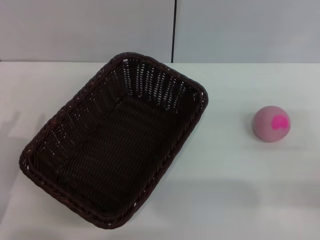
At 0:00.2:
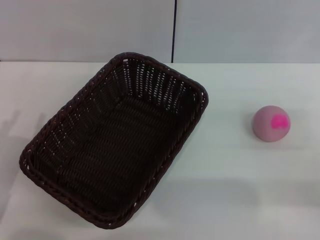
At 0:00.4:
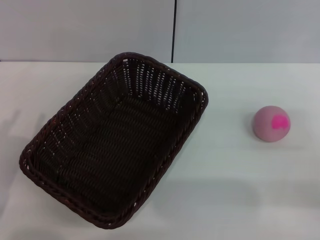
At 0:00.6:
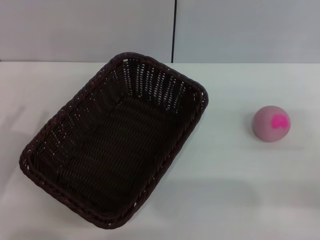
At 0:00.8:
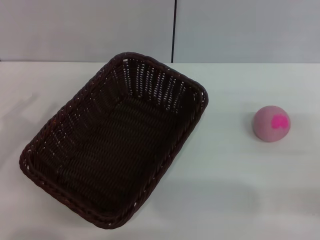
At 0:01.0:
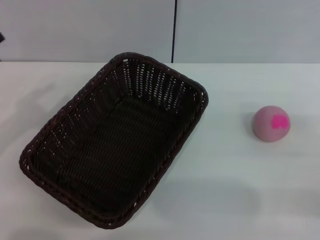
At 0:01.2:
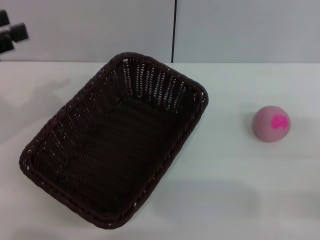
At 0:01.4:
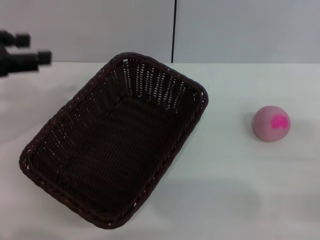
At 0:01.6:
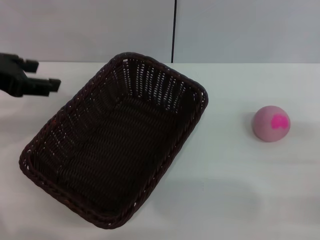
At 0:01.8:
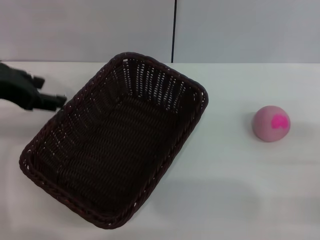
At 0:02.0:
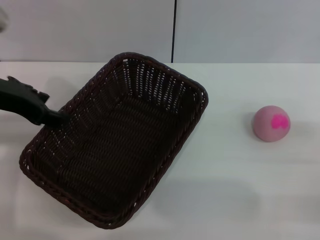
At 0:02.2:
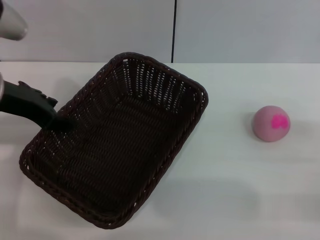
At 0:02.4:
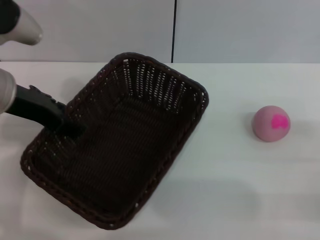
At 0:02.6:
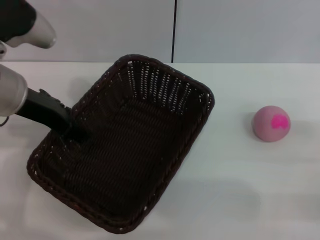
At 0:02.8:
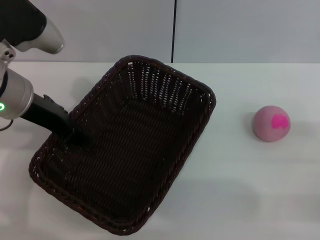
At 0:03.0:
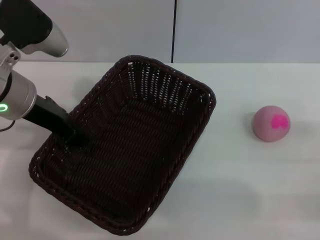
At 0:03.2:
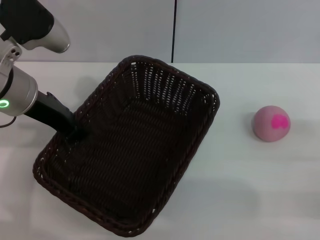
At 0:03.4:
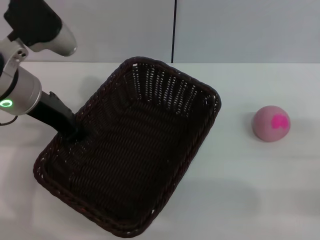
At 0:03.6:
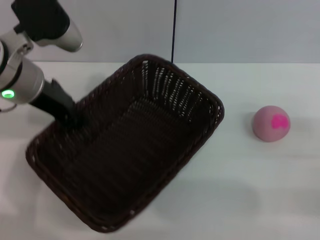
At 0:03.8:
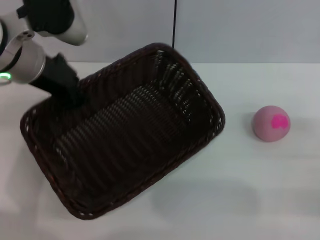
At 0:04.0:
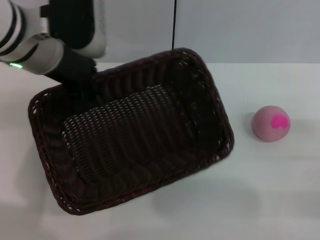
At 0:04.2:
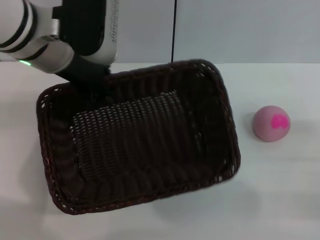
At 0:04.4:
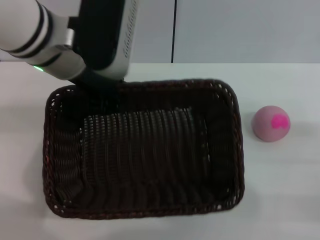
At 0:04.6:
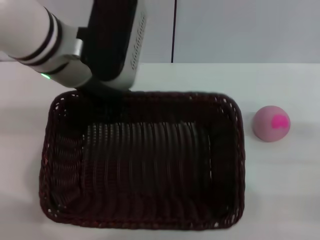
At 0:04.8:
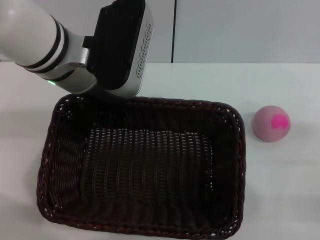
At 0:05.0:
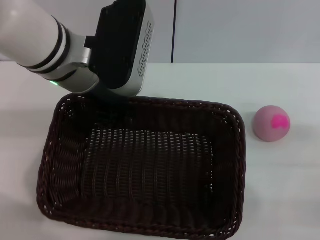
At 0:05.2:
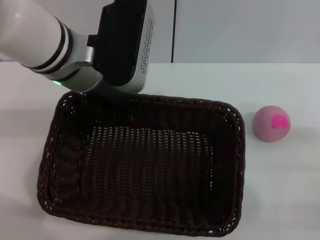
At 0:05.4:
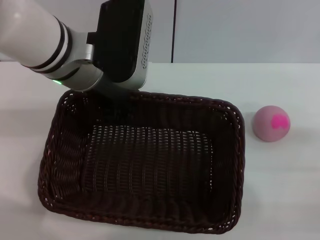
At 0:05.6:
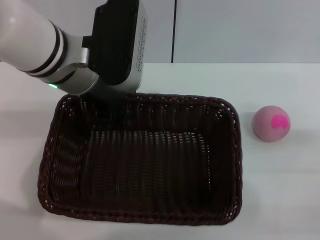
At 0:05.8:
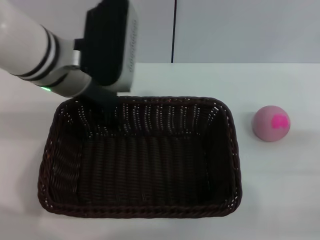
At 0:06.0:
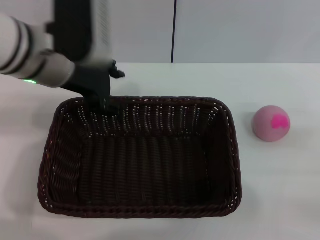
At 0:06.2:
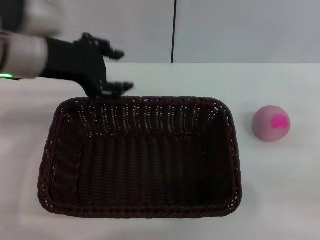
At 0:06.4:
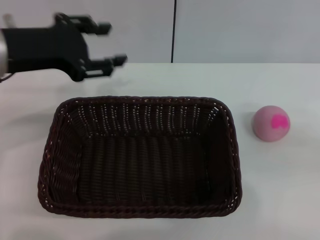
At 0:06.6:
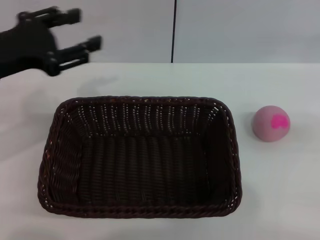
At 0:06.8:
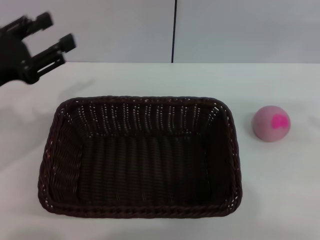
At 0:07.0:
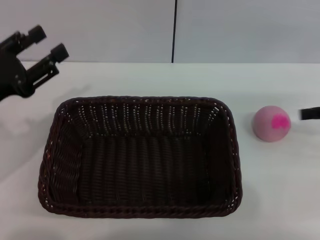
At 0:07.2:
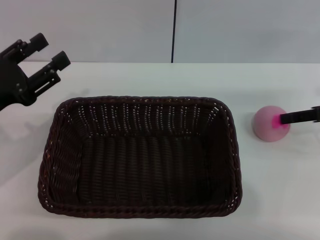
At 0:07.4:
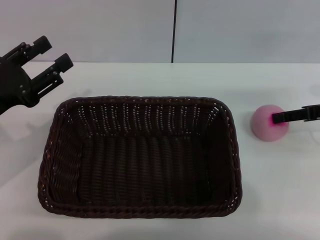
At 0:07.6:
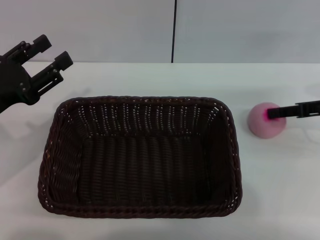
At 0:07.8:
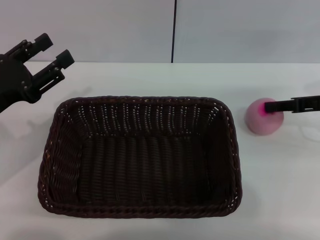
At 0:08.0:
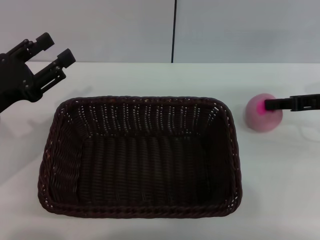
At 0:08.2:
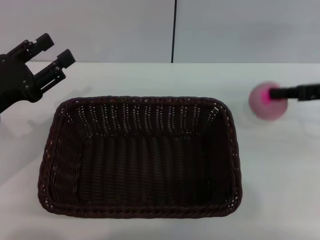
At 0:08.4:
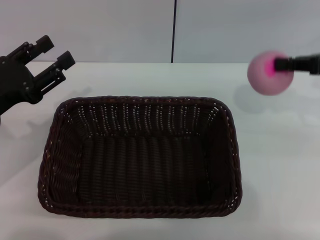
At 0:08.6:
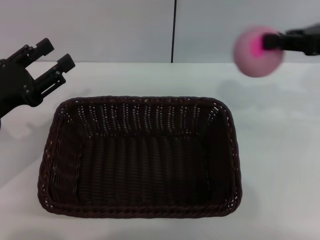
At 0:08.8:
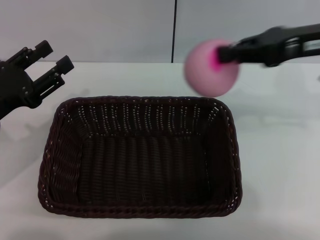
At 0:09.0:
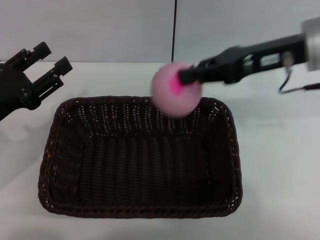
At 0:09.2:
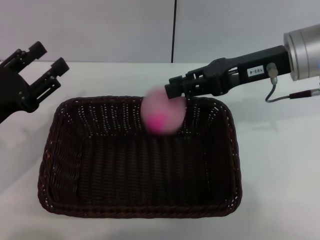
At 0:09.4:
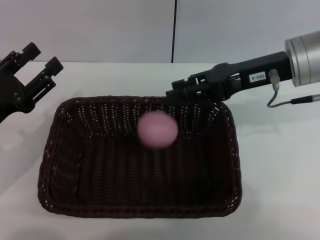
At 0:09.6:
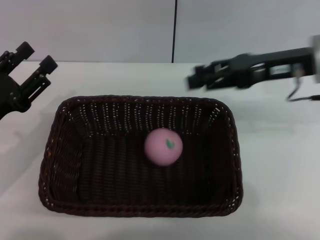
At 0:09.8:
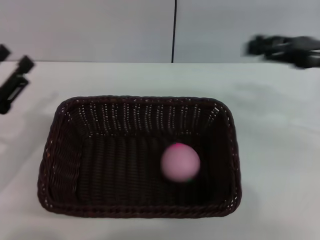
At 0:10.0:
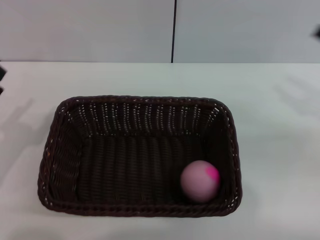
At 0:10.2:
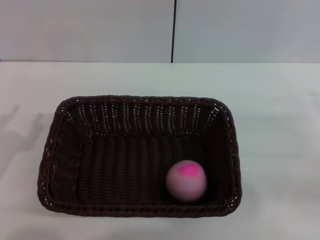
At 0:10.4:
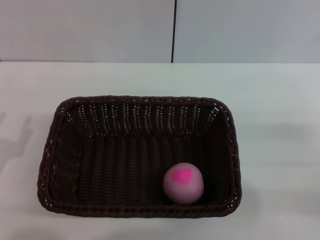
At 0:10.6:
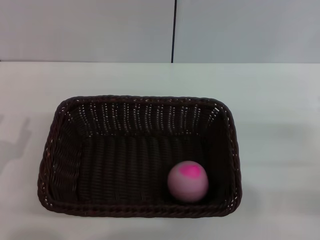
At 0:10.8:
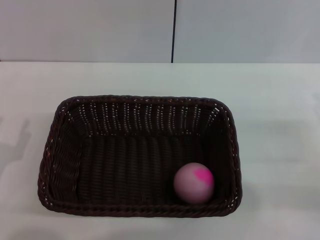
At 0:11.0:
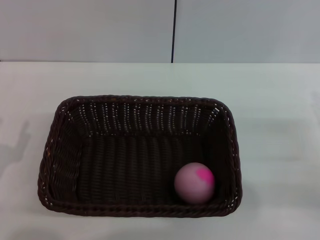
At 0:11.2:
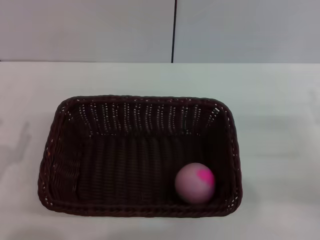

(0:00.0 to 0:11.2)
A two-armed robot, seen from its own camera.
Step, 0:00.0 - 0:03.8: Pick up the dark basket with the left gripper.
Step, 0:04.2 - 0:06.2: Place the dark basket in the center of view with the right gripper.
Step, 0:06.4 - 0:08.4: Pick up the peach with the left gripper.
Step, 0:08.6 - 0:09.6: Place the peach into the basket with the left gripper.
0:00.0 - 0:01.6: The left gripper travels upward and forward by some 25 cm.
0:01.6 - 0:03.2: The left gripper goes approximately 10 cm to the right, and closes up.
0:03.2 - 0:04.8: The left gripper shifts roughly 10 cm to the right, and closes.
0:04.8 - 0:06.4: The right gripper travels upward and to the right by about 15 cm. Meanwhile the left gripper shifts approximately 10 cm to the left, and opens its fingers.
0:06.4 - 0:08.0: The left gripper heads downward and to the left, covering about 10 cm, while the right gripper heads forward, to the left and downward, covering some 20 cm, and closes up.
0:08.0 - 0:09.6: The right gripper heads to the left and upward, covering about 10 cm, and opens its fingers.
0:09.6 - 0:11.2: The right gripper heads downward, backward and to the right, covering some 20 cm. The left gripper travels backward and downward by about 10 cm.
